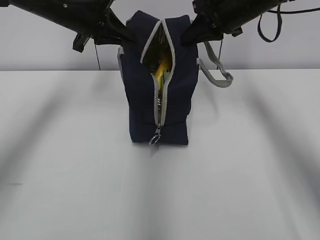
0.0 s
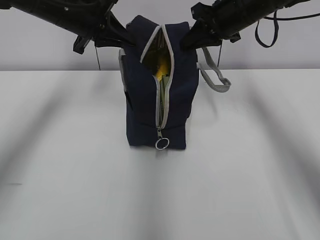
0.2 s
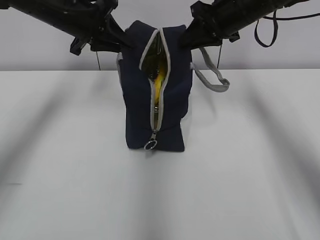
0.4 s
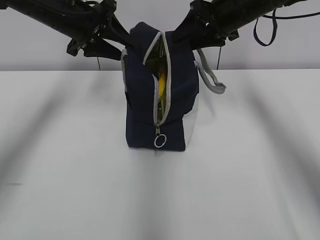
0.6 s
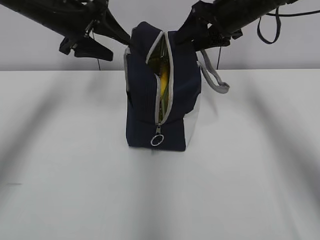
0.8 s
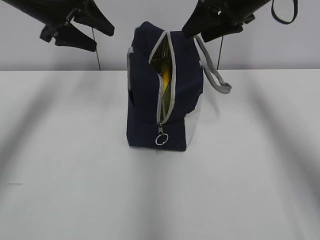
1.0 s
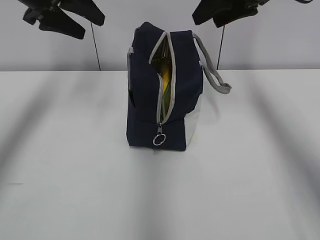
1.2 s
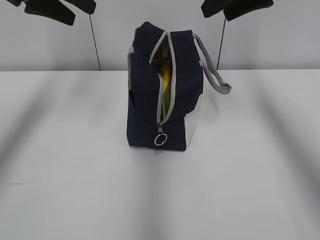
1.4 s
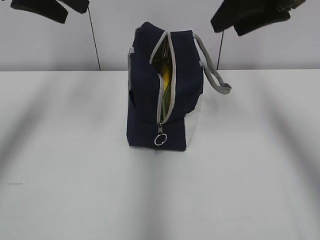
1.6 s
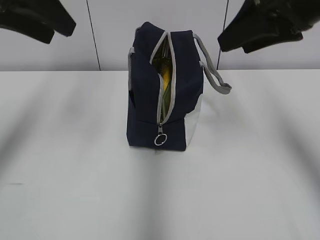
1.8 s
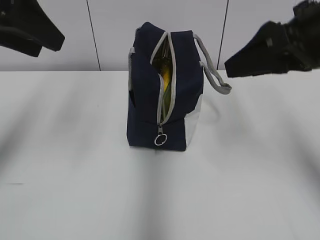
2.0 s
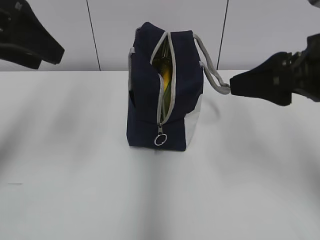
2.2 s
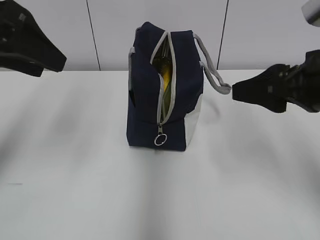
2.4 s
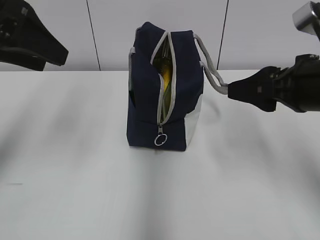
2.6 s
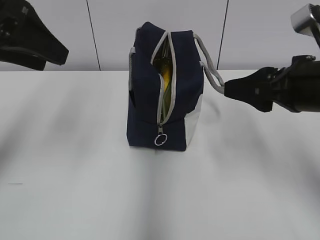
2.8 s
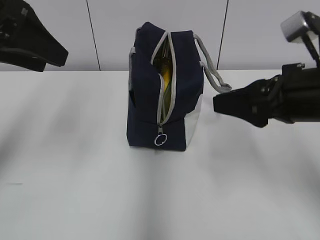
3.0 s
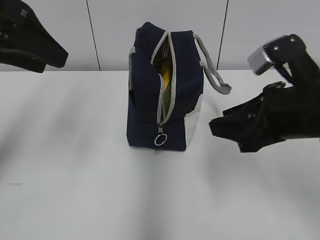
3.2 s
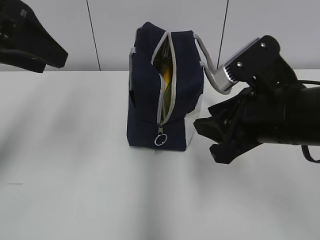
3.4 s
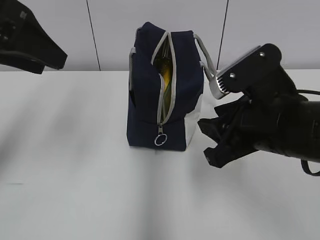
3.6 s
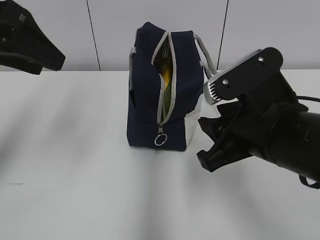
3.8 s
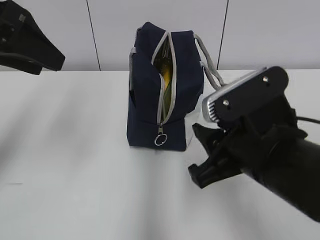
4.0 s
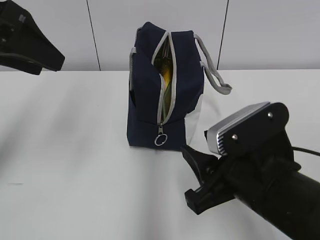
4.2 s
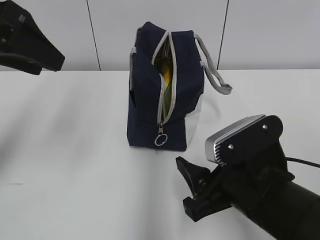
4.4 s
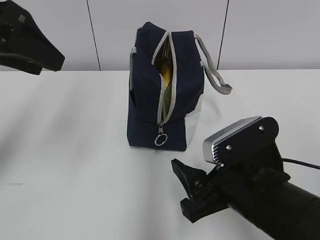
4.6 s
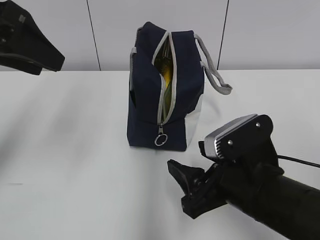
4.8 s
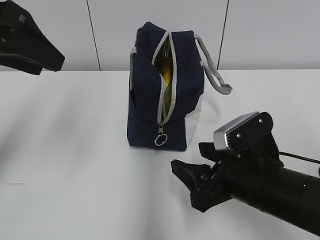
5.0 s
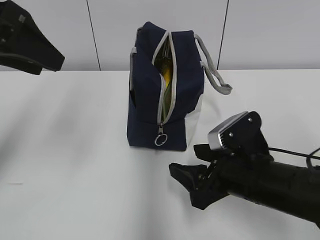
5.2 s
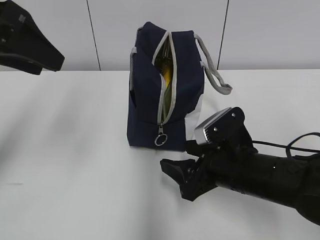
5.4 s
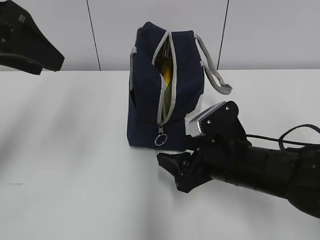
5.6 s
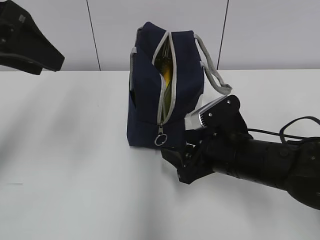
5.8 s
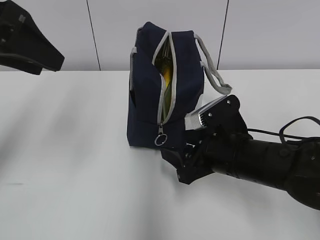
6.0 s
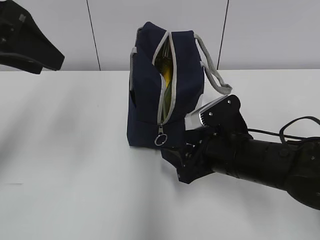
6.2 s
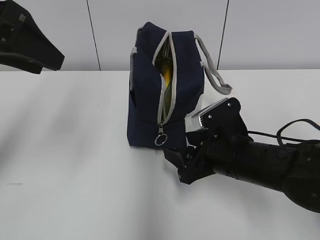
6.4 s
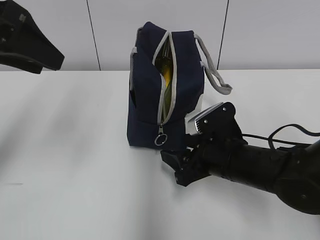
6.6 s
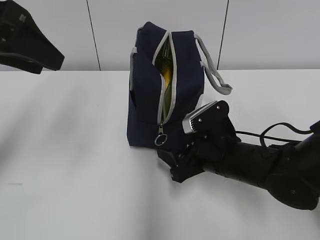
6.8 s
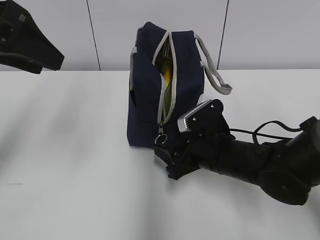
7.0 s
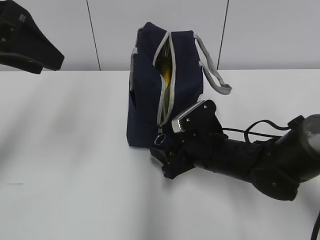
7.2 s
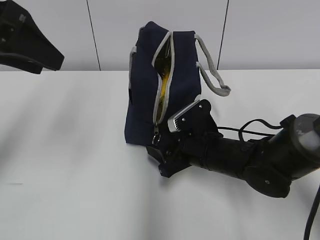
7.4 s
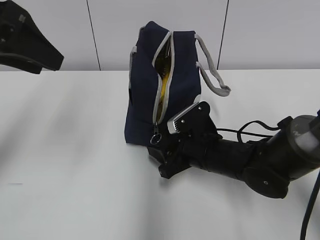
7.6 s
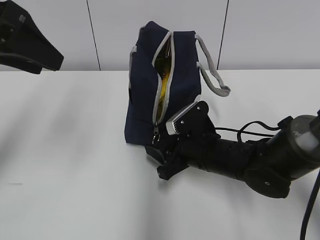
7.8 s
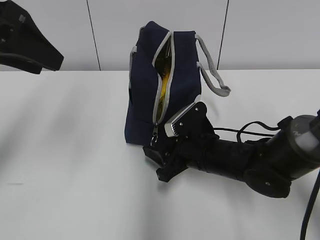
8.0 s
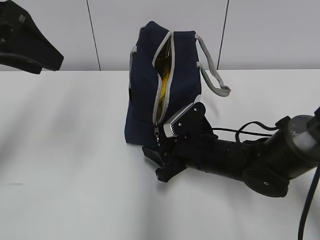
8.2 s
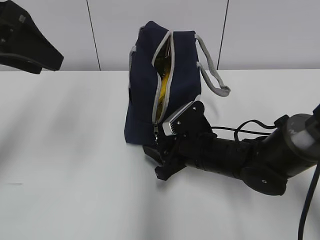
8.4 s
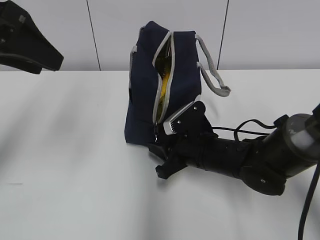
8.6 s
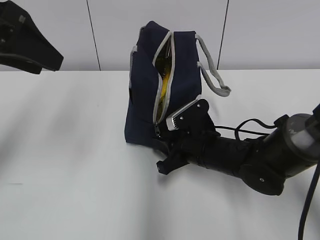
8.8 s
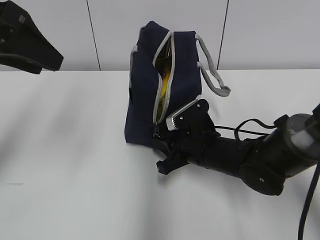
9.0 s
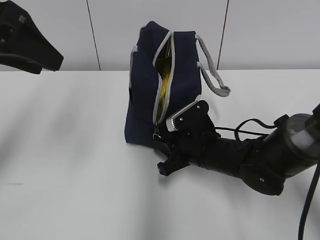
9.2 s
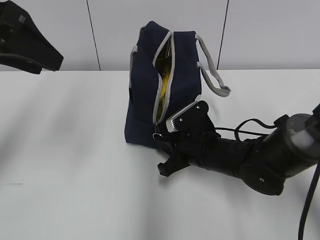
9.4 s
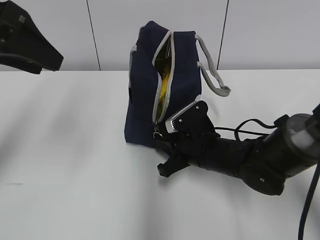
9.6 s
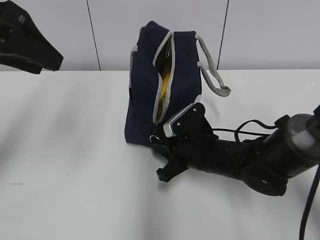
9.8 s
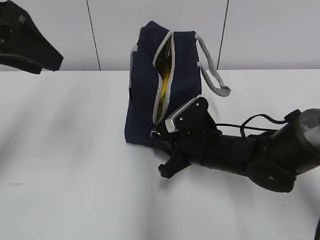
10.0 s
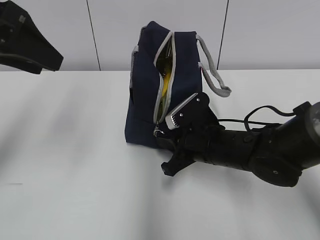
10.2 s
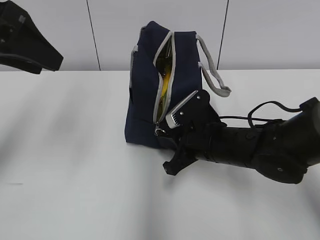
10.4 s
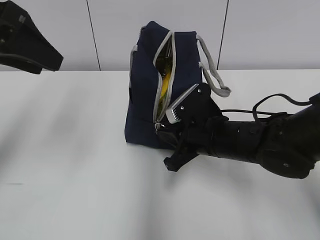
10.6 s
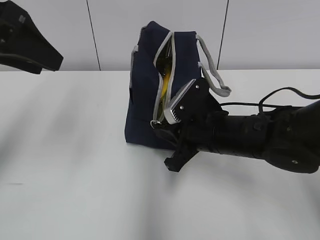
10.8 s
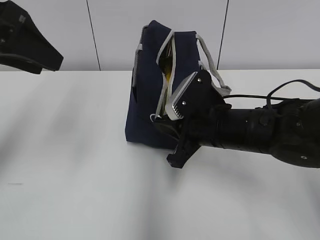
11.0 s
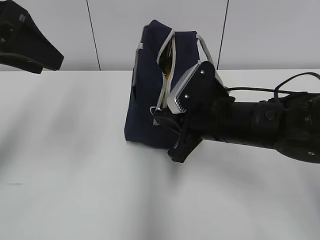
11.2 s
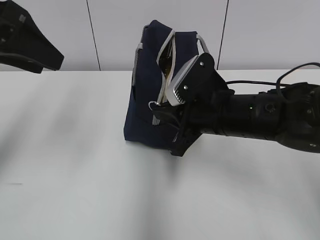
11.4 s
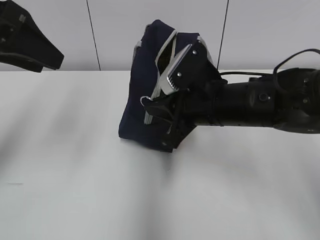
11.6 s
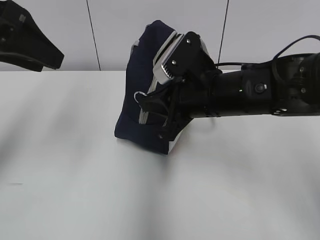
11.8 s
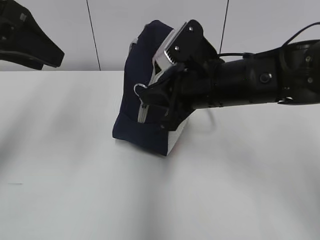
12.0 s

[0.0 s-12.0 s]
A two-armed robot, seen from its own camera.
0.0 to 1.6 s: The left gripper is displaced upward and backward by roughly 15 cm, and opens its fingers, while the right gripper shifts approximately 10 cm backward and upward, and opens up.
1.6 to 3.0 s: The right gripper is displaced downward and backward by about 15 cm. The left gripper shifts about 10 cm backward.
3.0 to 4.4 s: The right gripper is displaced downward, to the left and backward by some 15 cm.
4.4 to 6.0 s: The right gripper goes about 10 cm forward.
6.0 to 7.6 s: The right gripper ends up about 5 cm from where it was.
7.6 to 9.0 s: The right gripper closes up.
9.0 to 10.4 s: The grippers stay close to where they were, moving slightly.
10.4 to 12.0 s: The right gripper is displaced upward by about 10 cm.

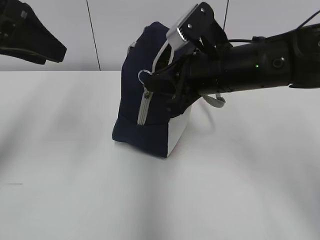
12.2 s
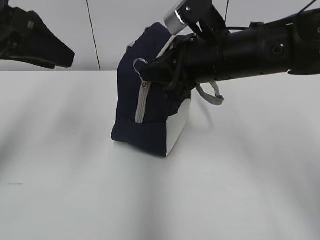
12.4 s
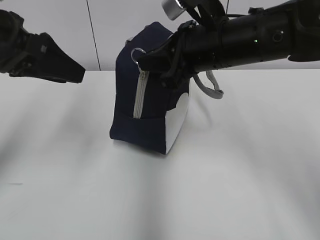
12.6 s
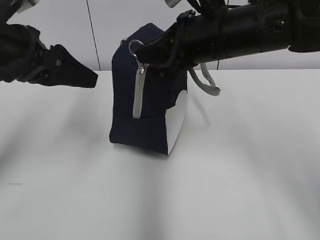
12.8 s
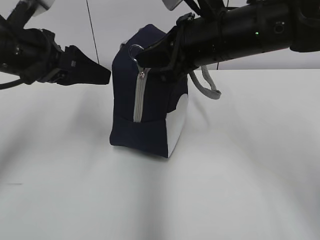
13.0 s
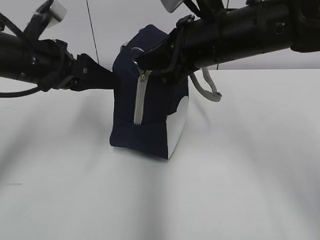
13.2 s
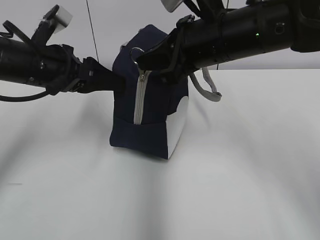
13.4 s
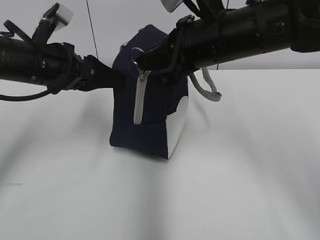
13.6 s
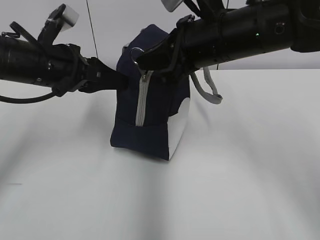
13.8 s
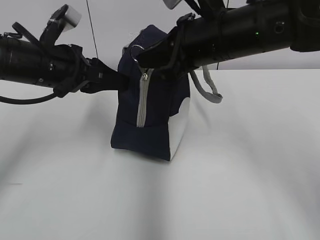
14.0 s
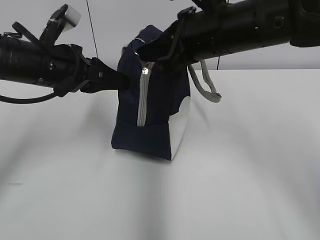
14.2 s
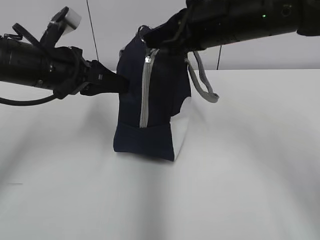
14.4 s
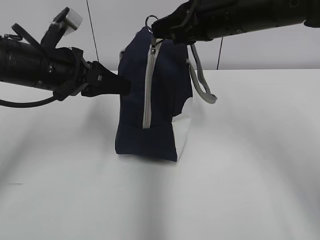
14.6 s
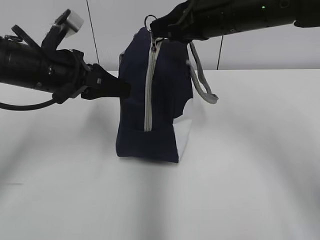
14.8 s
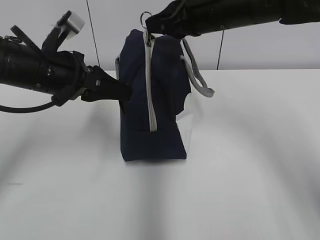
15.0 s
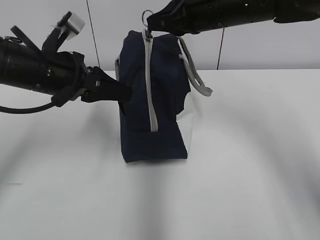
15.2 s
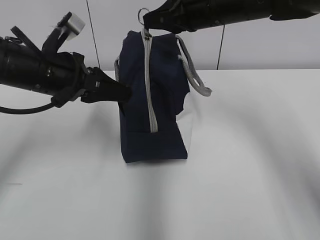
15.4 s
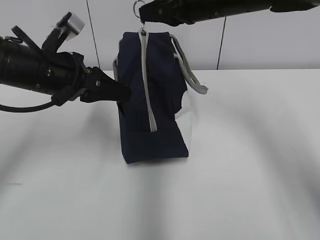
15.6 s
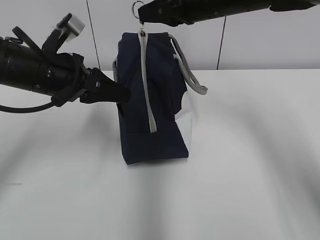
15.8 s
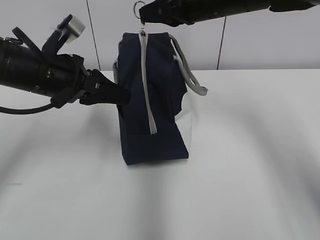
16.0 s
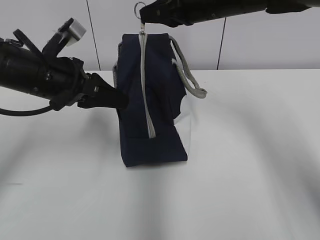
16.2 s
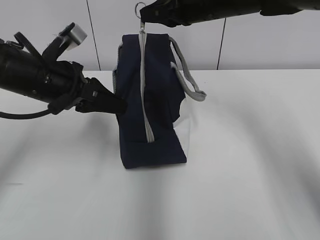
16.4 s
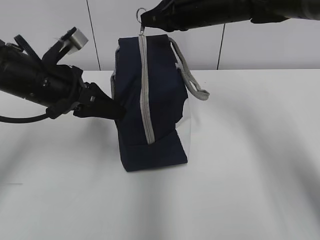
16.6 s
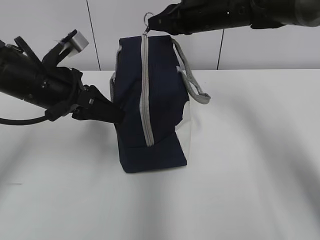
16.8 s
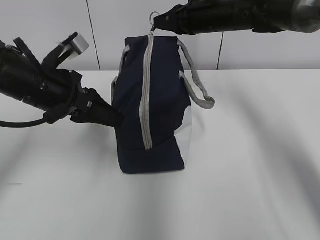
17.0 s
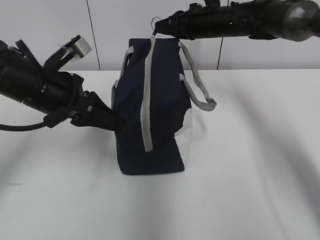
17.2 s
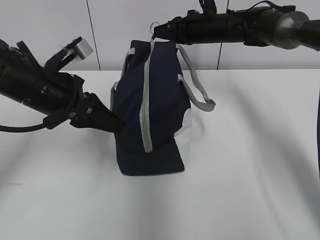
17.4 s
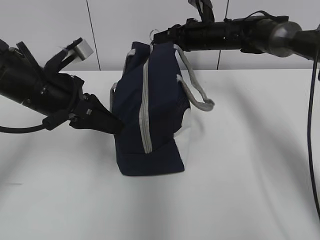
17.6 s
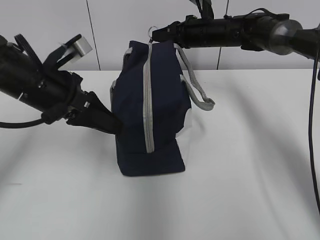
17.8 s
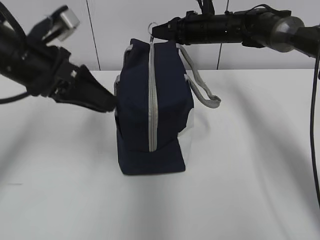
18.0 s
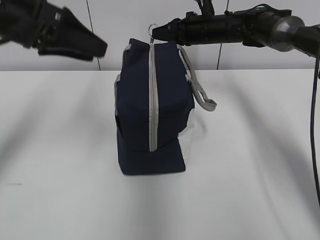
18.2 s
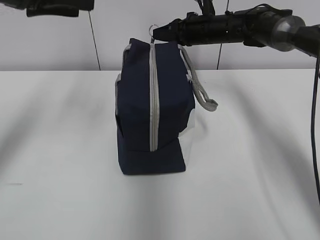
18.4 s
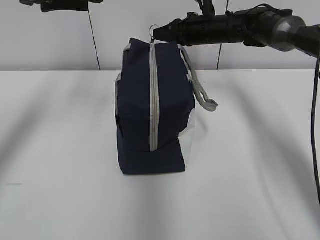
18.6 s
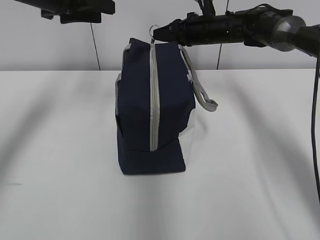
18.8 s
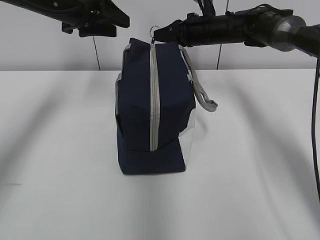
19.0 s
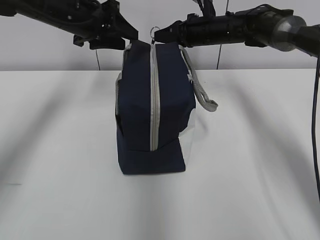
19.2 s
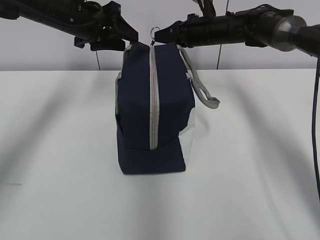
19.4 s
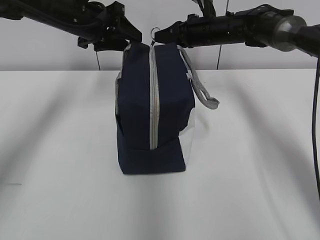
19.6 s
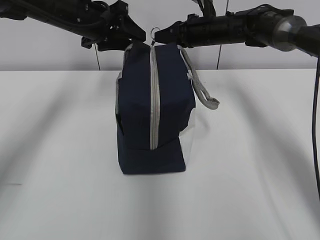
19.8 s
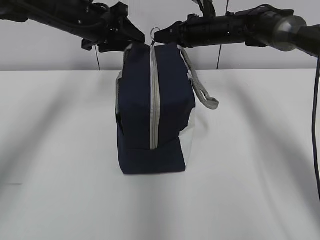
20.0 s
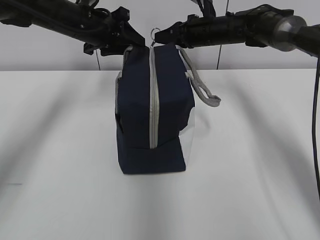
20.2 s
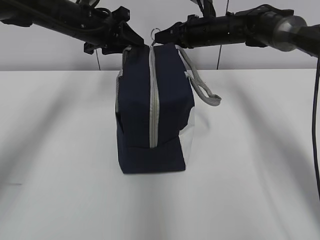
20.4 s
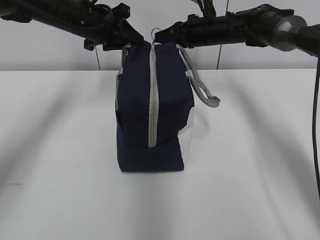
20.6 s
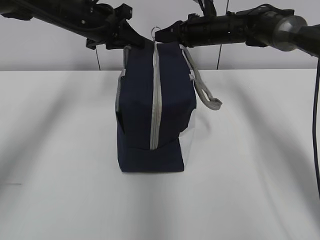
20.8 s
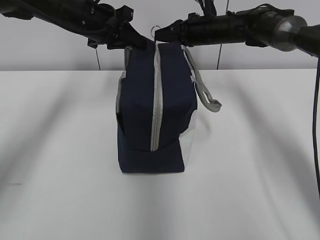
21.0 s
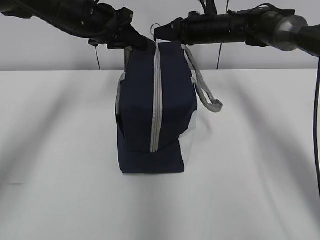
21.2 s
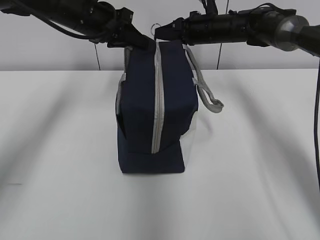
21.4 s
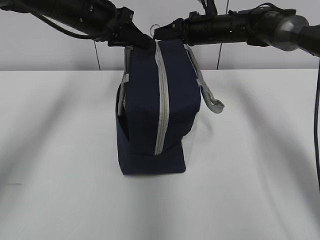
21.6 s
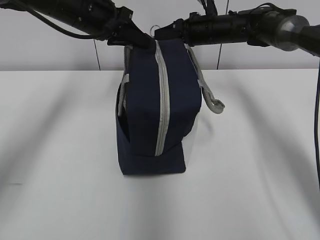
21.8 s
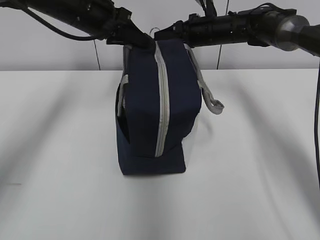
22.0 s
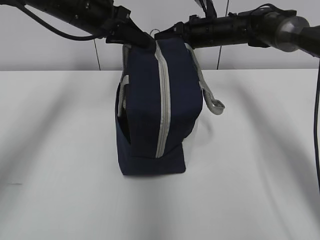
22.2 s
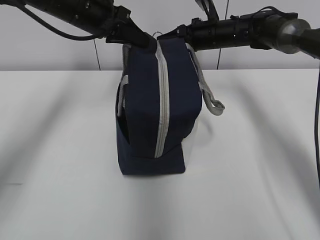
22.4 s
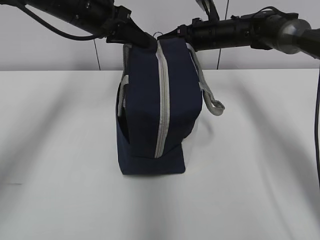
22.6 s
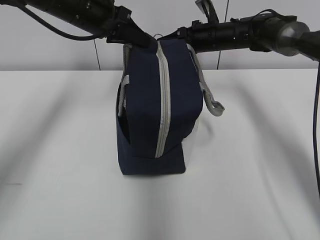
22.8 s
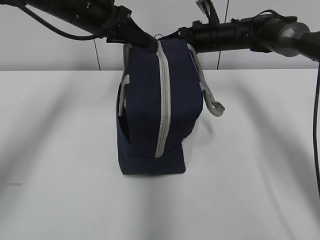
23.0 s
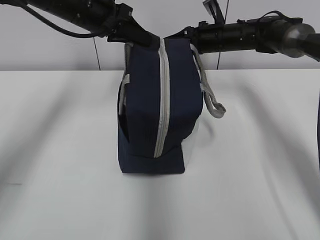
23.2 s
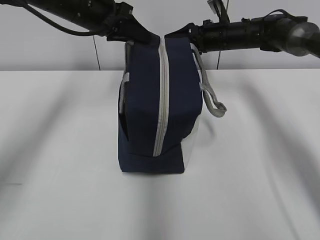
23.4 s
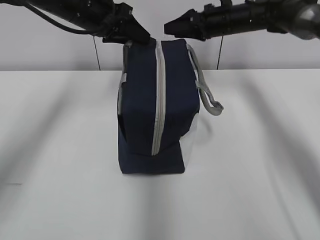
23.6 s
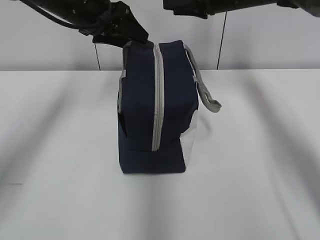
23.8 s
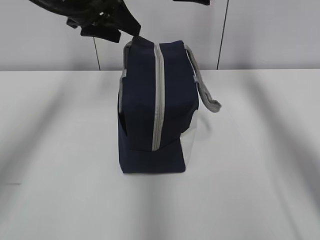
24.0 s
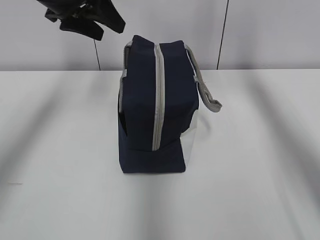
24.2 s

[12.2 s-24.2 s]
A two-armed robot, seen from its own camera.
12.2 to 13.8 s: The left gripper heads downward and forward, covering about 15 cm, and closes its fingers.
13.8 to 15.2 s: The right gripper shifts approximately 10 cm forward.
15.2 to 16.6 s: The right gripper changes place by about 5 cm.
16.6 to 18.2 s: The left gripper goes roughly 10 cm upward, and opens, while the right gripper moves forward and downward, approximately 10 cm.
18.2 to 19.8 s: The left gripper is displaced forward and downward by about 15 cm.
19.8 to 21.2 s: The left gripper closes.
21.2 to 22.6 s: The grippers make only small movements.
22.6 to 24.2 s: The left gripper changes place by approximately 5 cm, and opens. The right gripper goes some 15 cm upward, and opens its fingers.
